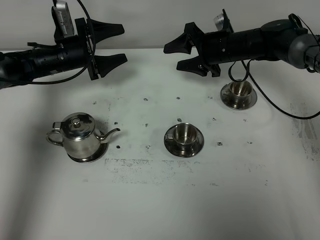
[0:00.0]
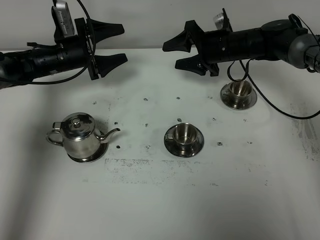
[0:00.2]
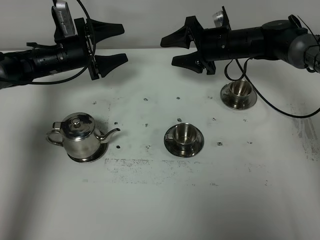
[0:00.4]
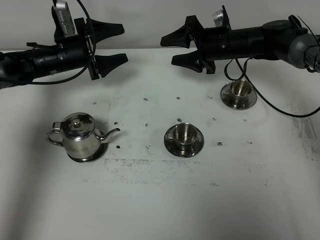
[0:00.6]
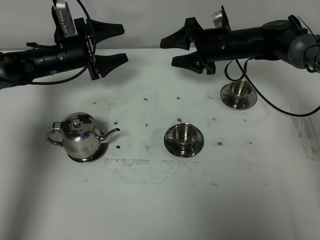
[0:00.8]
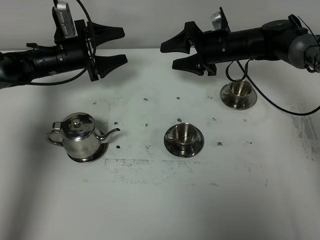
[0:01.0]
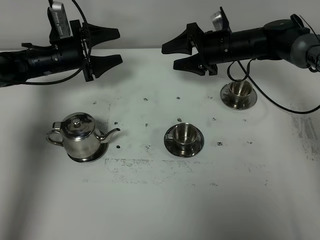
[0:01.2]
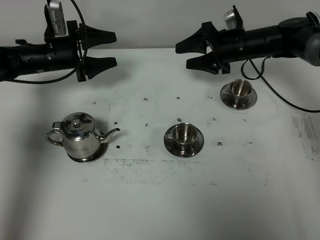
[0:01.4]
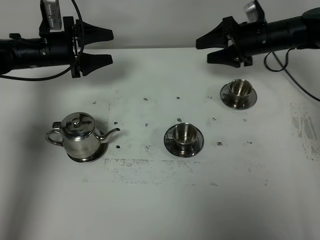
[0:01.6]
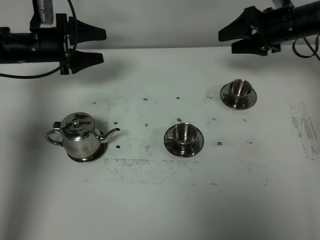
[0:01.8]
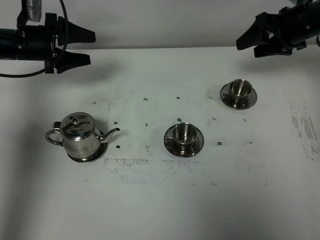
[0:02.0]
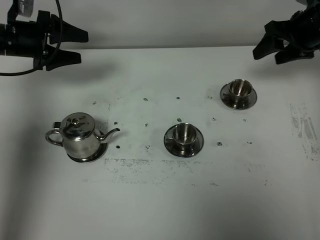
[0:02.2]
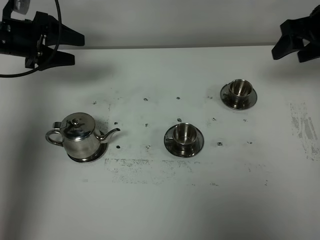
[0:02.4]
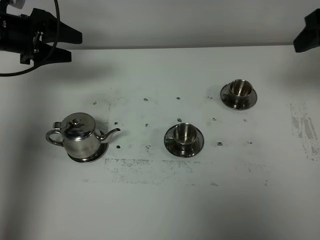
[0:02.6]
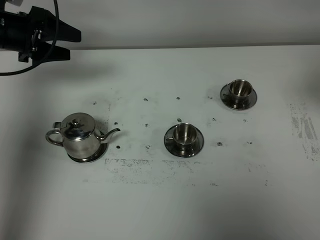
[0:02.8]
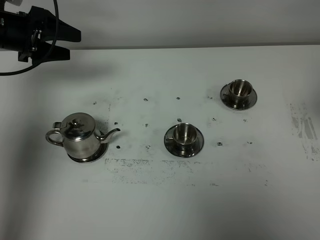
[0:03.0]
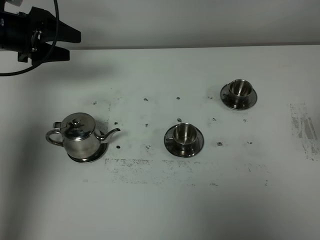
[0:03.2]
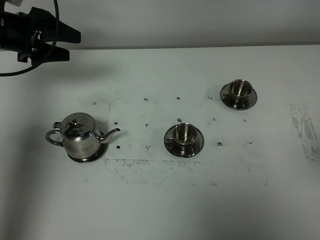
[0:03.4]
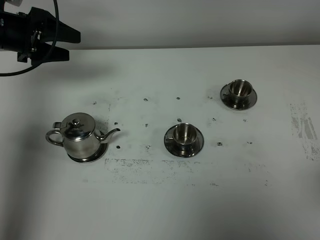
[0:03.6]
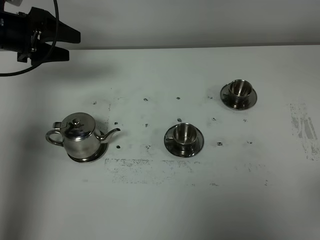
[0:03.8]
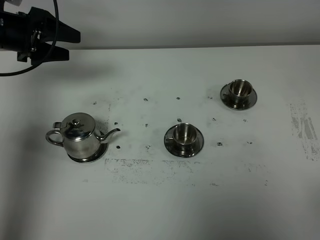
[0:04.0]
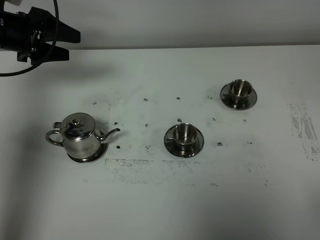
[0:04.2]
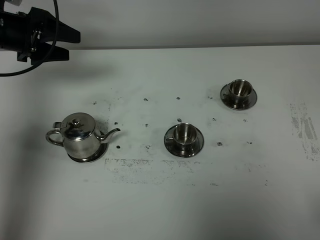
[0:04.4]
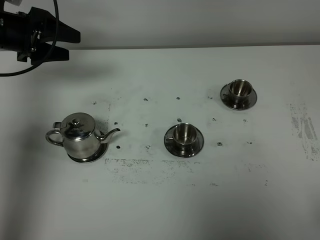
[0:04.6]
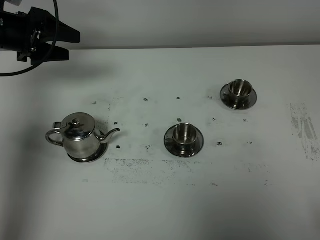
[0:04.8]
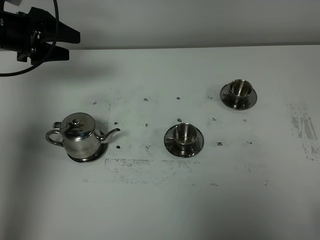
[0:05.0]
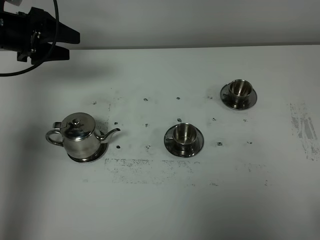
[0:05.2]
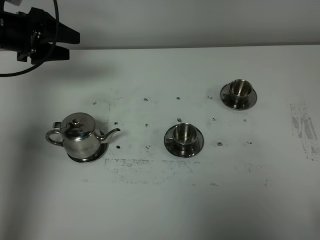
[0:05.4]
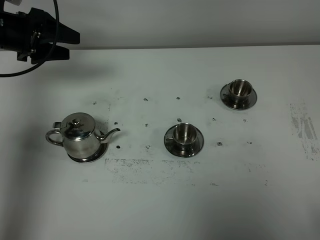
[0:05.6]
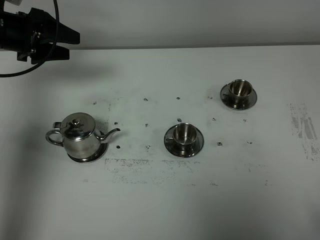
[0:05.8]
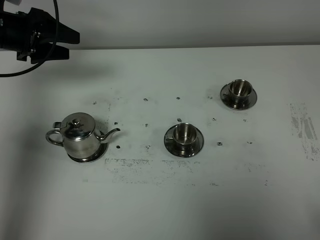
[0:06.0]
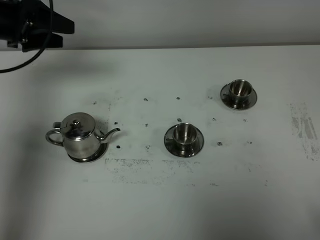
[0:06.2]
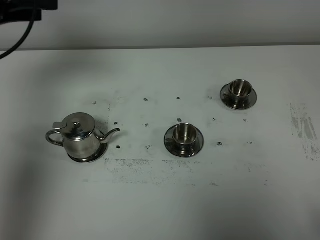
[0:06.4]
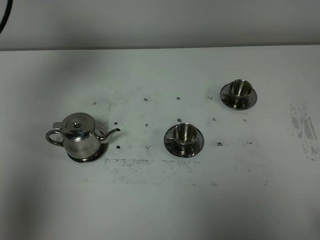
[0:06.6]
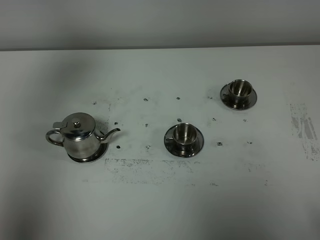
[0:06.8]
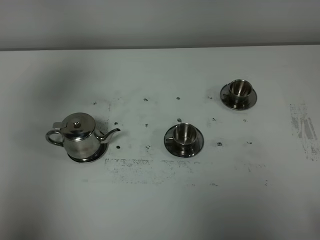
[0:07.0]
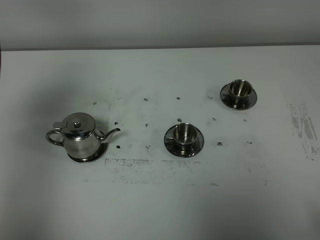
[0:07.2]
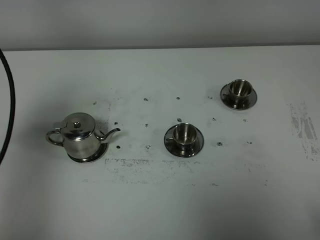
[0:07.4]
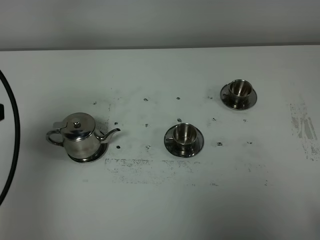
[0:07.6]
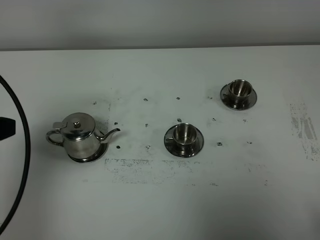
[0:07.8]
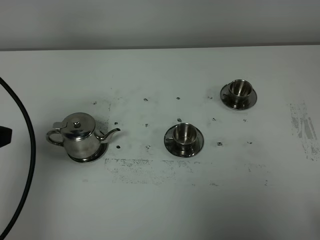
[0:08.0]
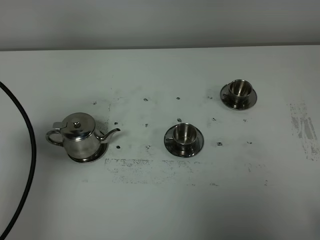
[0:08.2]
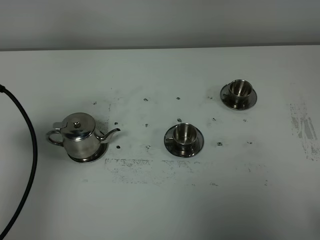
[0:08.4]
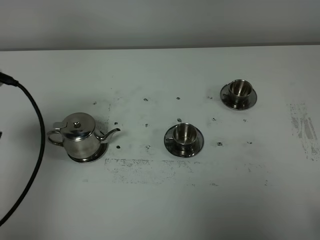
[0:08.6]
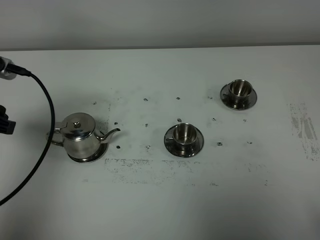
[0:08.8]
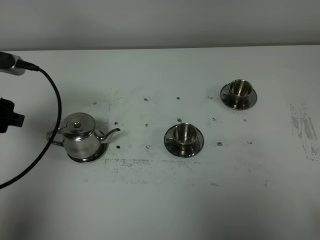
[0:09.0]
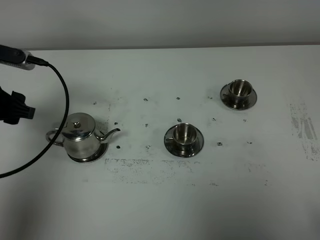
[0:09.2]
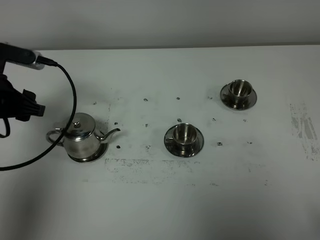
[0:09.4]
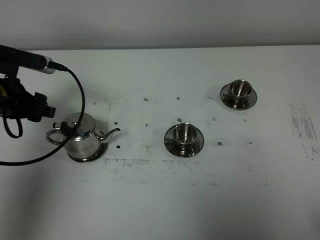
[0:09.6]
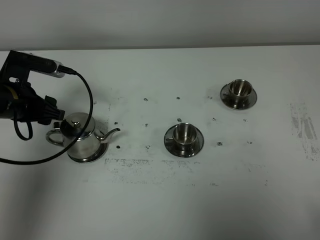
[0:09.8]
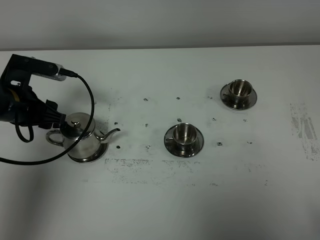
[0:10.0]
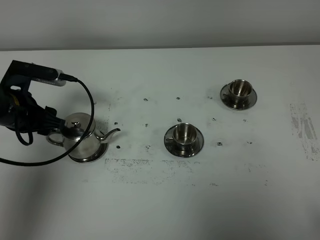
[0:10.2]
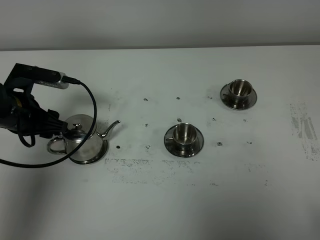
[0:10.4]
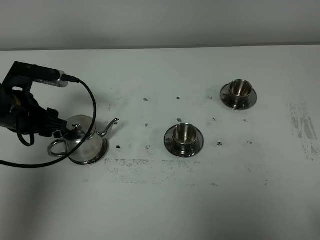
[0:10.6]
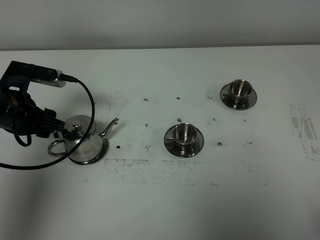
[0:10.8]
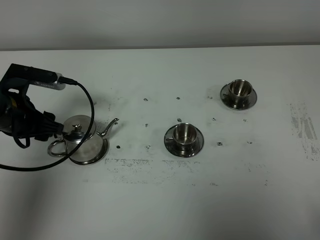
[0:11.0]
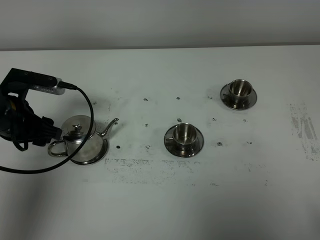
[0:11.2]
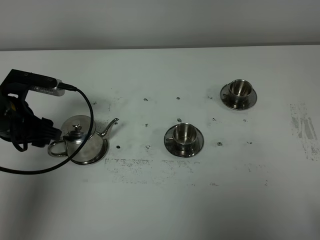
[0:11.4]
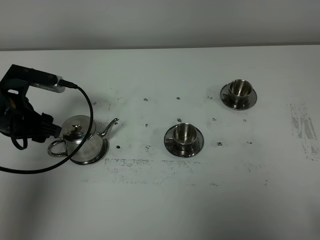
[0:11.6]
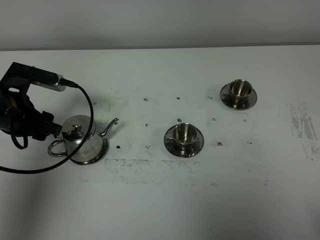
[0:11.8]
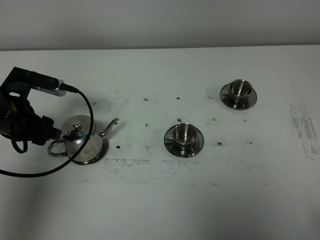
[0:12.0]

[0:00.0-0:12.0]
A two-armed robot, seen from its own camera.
Task of the whole recording: grasp the stainless steel teapot and pour the tea into the two stainless steel teacups one by one, put the stainless steel teapot back in its original place.
0:00.0 to 0:01.6: The right gripper goes some 10 cm to the right.
0:01.6 to 0:03.0: The left gripper is displaced upward by approximately 10 cm. Meanwhile the right gripper goes roughly 35 cm backward and upward.
0:06.0 to 0:07.6: The left gripper goes approximately 25 cm backward.
0:07.6 to 0:09.0: The left gripper moves forward and downward, some 15 cm.
0:09.0 to 0:10.4: The left gripper travels downward by approximately 10 cm.
0:10.4 to 0:12.0: There are only small adjustments of the grippers.

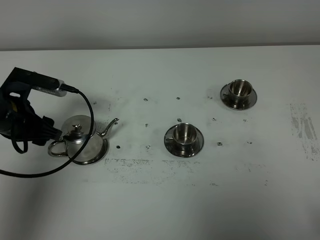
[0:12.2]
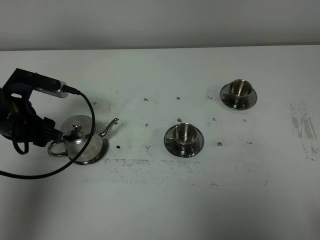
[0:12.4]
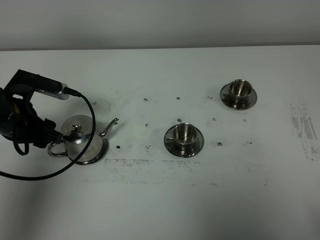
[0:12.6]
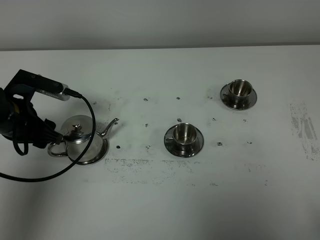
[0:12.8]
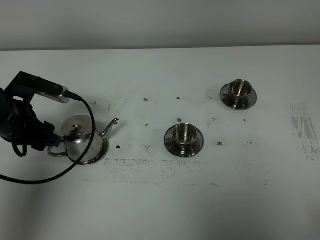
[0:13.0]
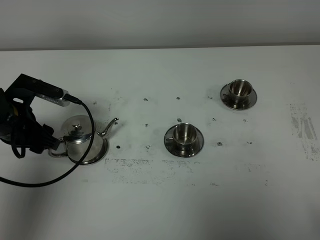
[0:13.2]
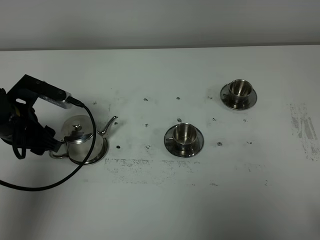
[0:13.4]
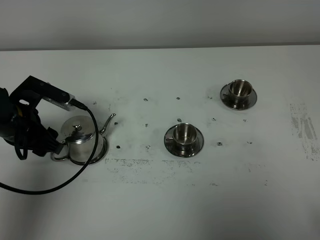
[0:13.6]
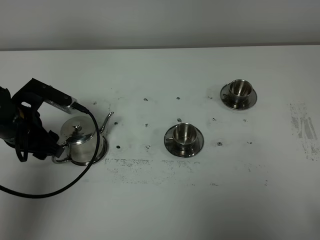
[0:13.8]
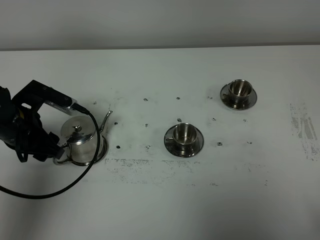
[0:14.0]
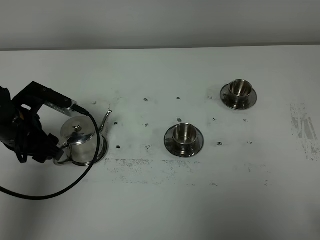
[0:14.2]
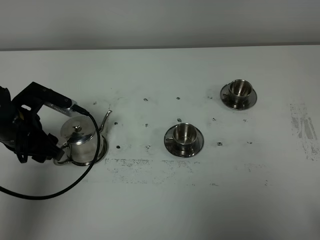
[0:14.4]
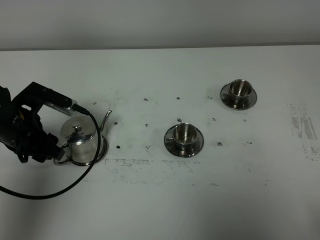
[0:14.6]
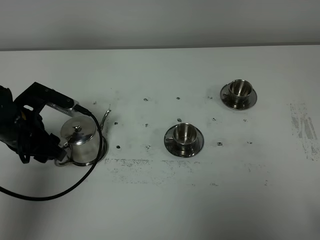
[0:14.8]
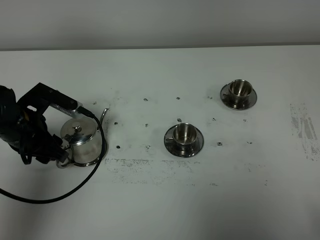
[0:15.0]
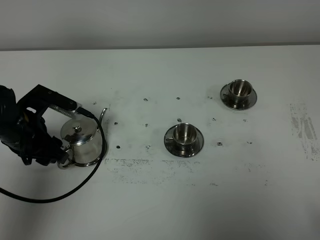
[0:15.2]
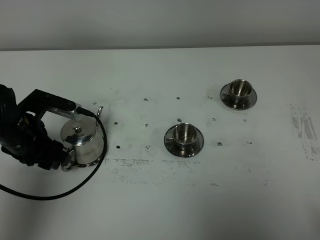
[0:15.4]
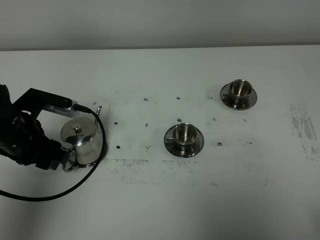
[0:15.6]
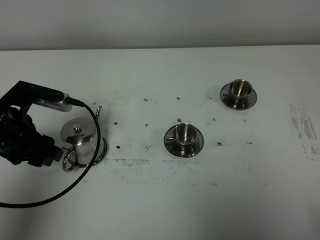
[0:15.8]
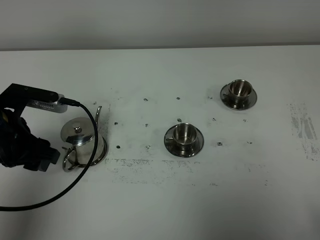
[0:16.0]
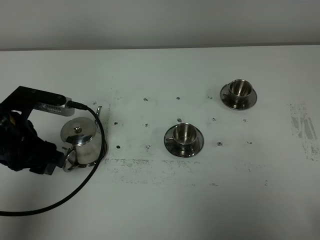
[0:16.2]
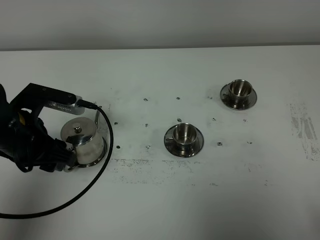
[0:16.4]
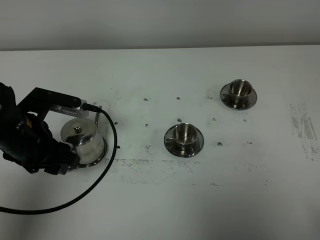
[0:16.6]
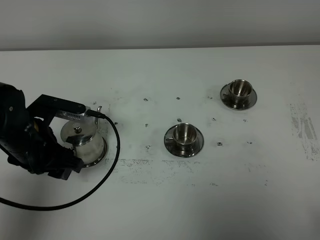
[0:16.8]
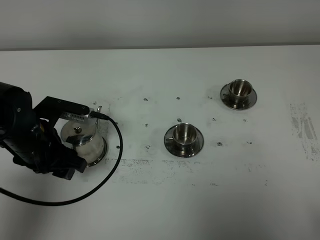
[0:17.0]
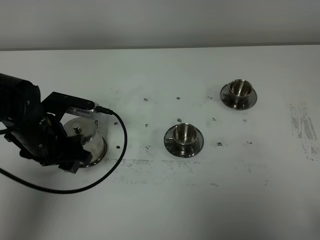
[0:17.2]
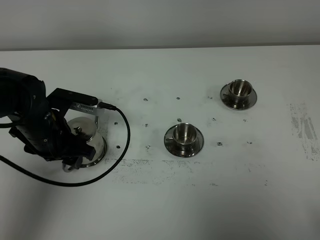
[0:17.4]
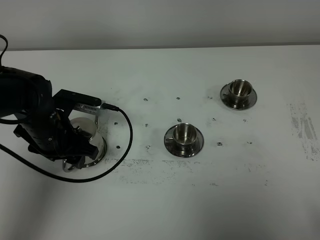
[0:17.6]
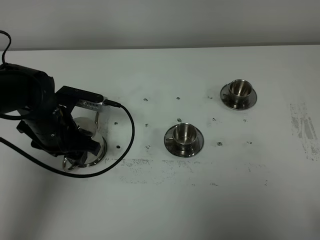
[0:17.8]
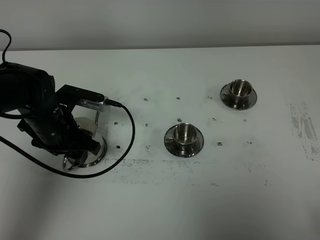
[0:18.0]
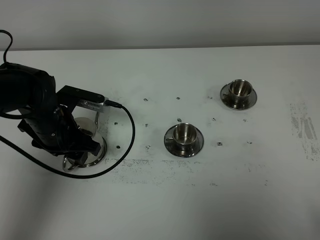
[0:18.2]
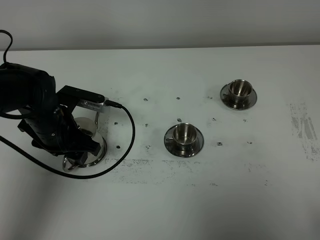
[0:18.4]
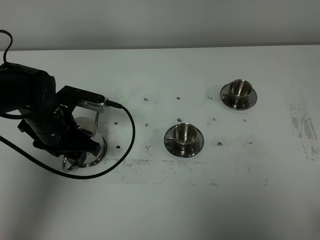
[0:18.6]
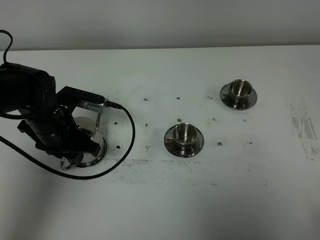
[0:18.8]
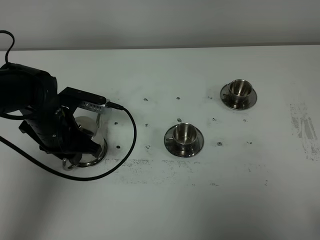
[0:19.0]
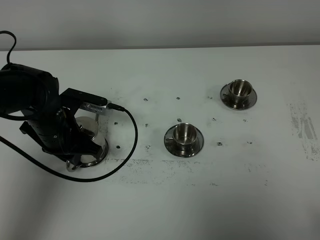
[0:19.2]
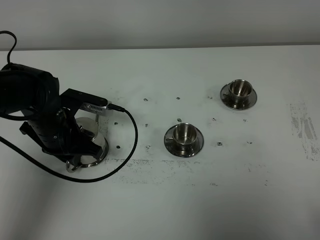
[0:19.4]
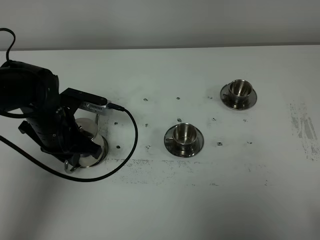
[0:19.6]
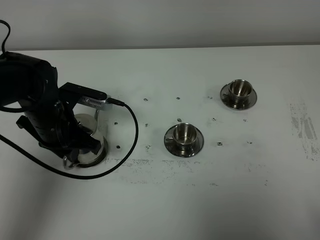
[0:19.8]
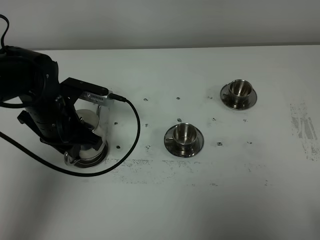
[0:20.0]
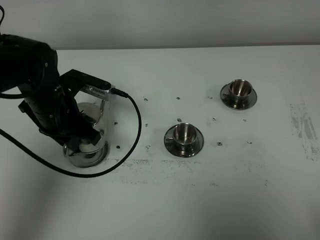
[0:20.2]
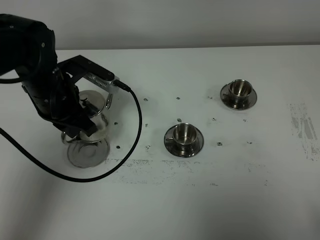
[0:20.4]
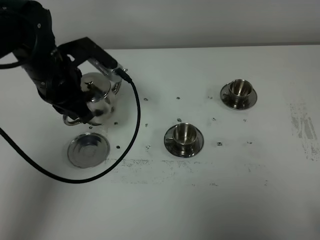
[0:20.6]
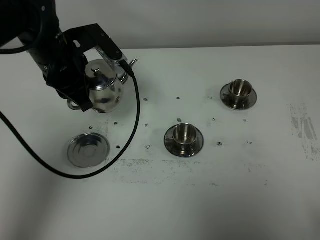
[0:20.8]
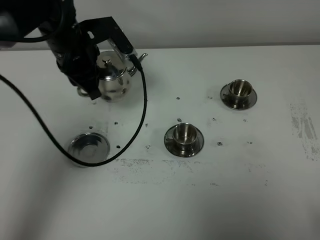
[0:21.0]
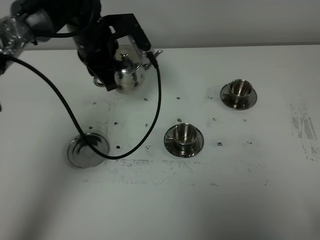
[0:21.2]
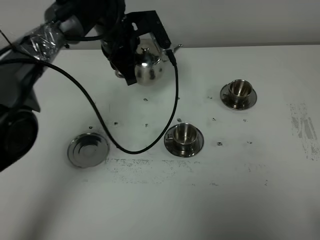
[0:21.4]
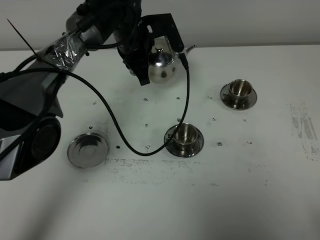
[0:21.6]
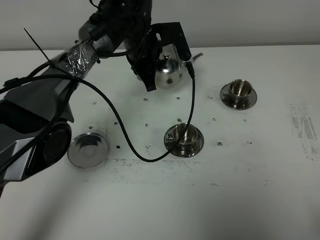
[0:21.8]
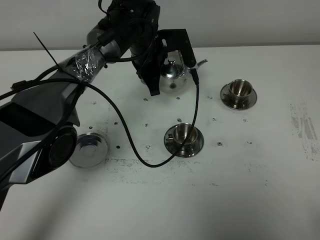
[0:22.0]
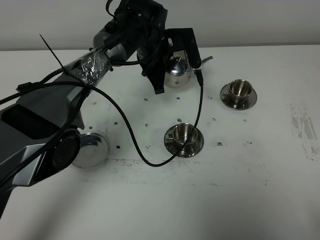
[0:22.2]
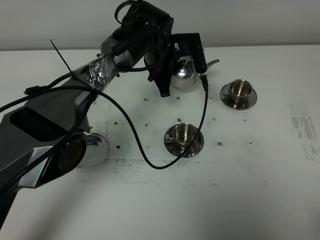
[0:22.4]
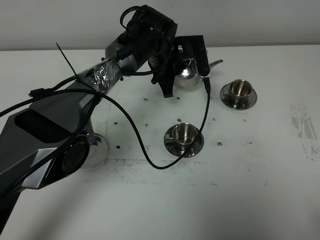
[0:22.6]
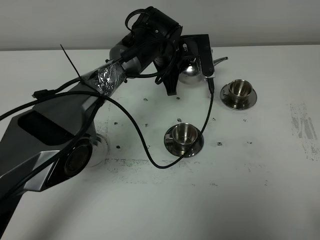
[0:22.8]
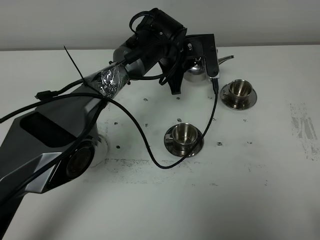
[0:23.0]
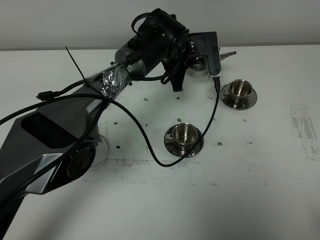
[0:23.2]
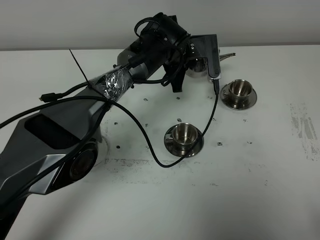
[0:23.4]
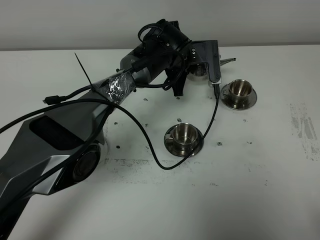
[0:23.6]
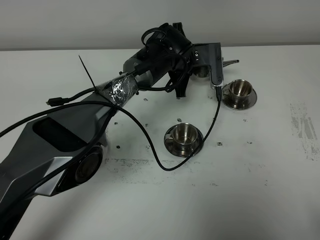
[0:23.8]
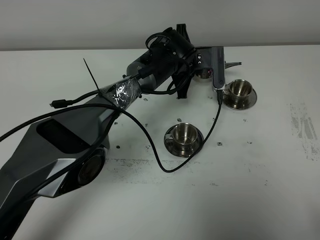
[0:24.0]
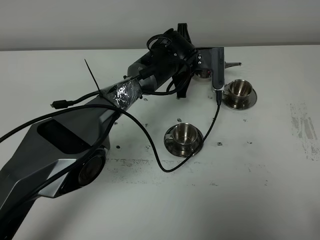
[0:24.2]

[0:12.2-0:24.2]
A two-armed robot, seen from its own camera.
Task of the whole recording: grasp the stainless steel teapot and pour the tea into the two stainless steel teacups one by one, put the stainless steel teapot back in its original place.
Step, 0:12.2 to 0:20.0: Pick up the teapot with the left gripper.
0:12.2 to 0:15.2: There are only small adjustments of the grippers.
0:15.2 to 0:16.6: The left gripper changes place by approximately 5 cm.
0:16.6 to 0:18.2: The left gripper goes about 5 cm forward.
0:18.2 to 0:19.8: The left gripper closes.
0:19.8 to 0:21.2: The left gripper moves forward, to the right and upward, approximately 15 cm.
0:21.2 to 0:22.6: The left gripper goes some 15 cm to the right and downward.
